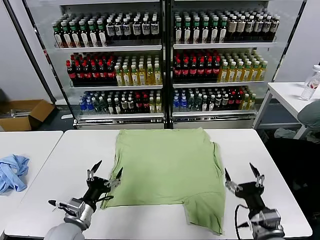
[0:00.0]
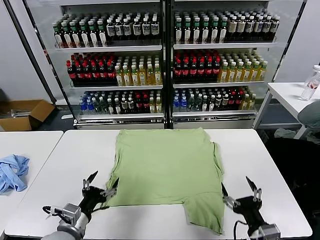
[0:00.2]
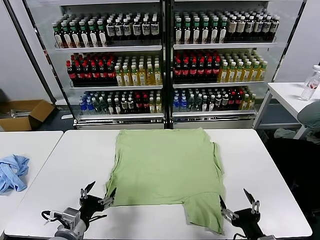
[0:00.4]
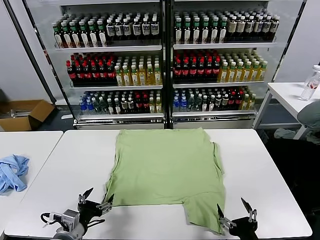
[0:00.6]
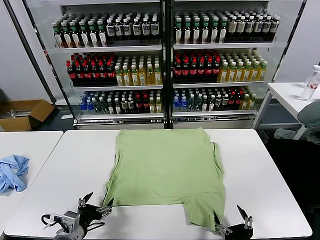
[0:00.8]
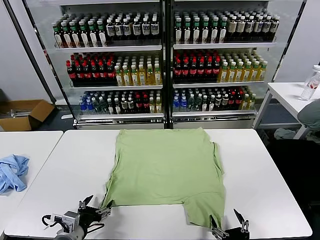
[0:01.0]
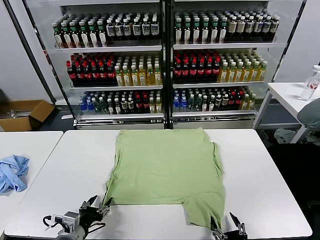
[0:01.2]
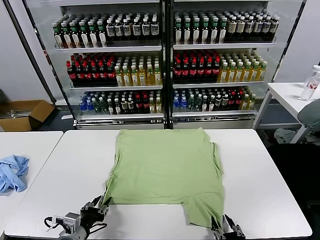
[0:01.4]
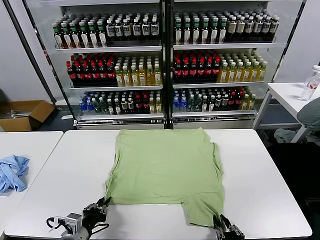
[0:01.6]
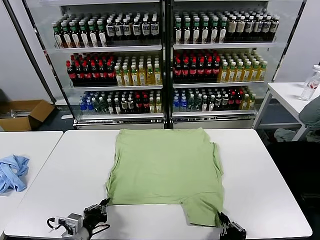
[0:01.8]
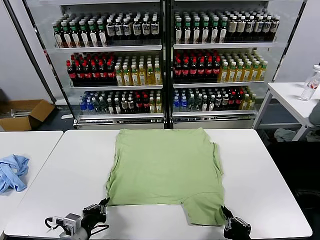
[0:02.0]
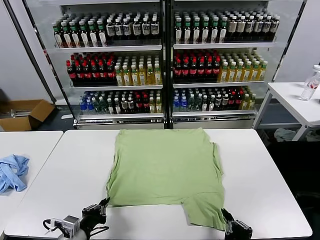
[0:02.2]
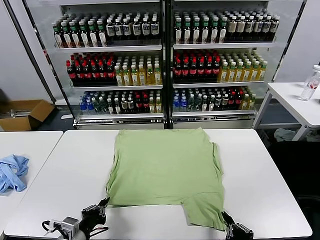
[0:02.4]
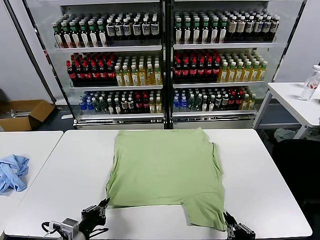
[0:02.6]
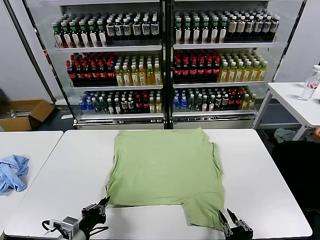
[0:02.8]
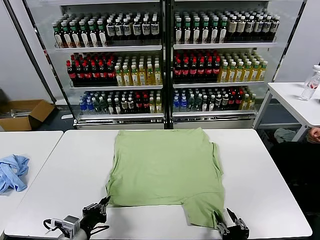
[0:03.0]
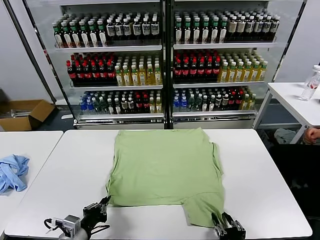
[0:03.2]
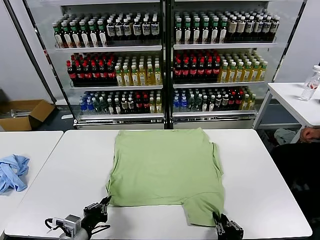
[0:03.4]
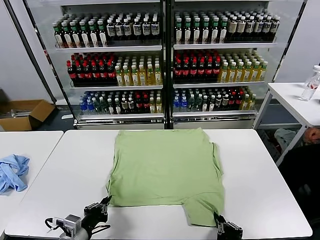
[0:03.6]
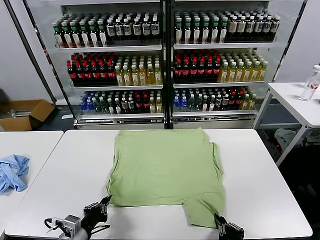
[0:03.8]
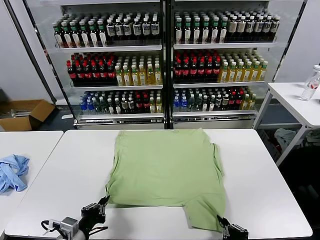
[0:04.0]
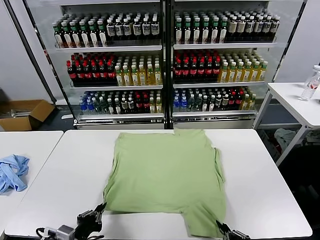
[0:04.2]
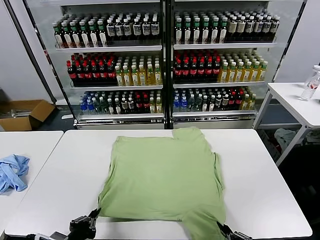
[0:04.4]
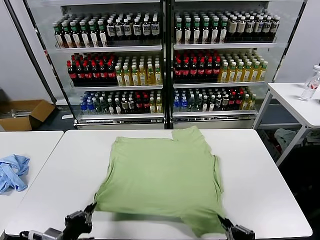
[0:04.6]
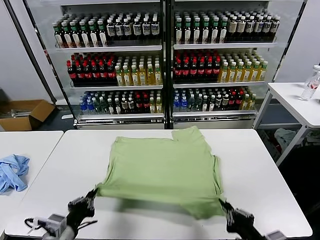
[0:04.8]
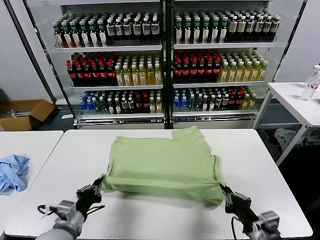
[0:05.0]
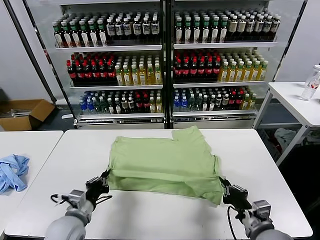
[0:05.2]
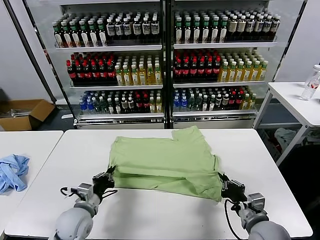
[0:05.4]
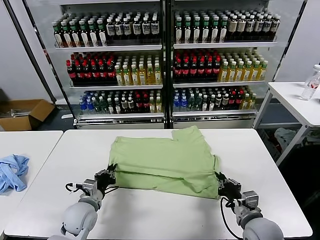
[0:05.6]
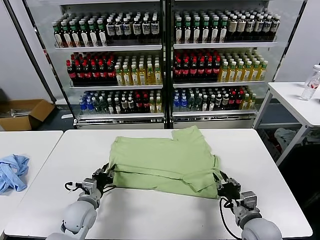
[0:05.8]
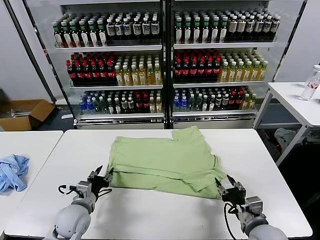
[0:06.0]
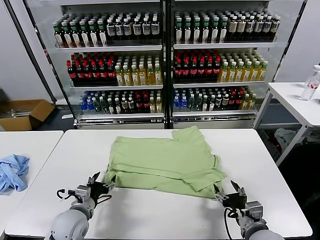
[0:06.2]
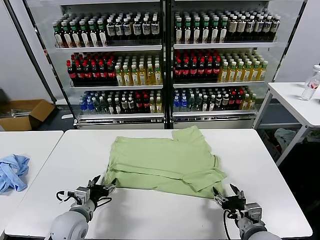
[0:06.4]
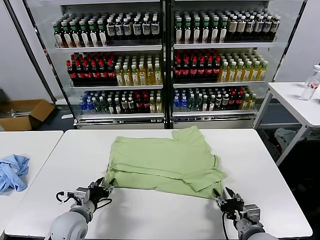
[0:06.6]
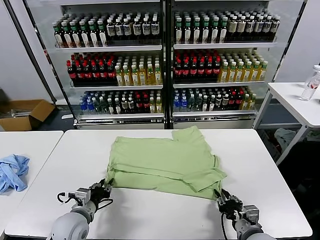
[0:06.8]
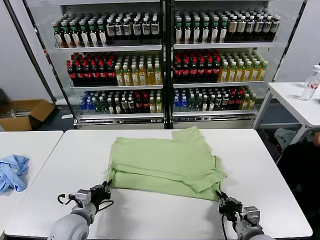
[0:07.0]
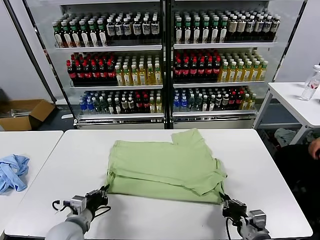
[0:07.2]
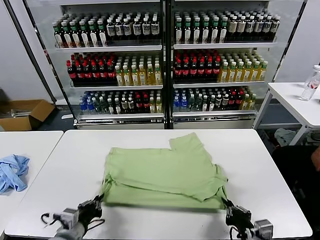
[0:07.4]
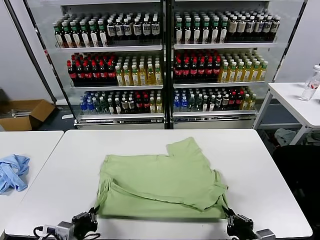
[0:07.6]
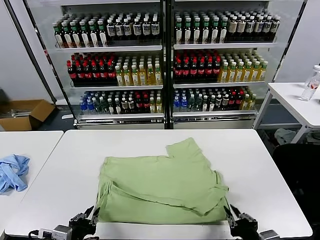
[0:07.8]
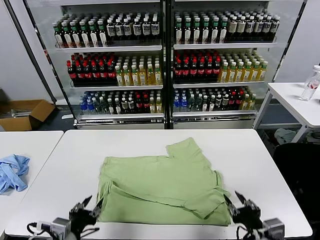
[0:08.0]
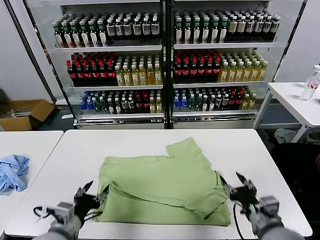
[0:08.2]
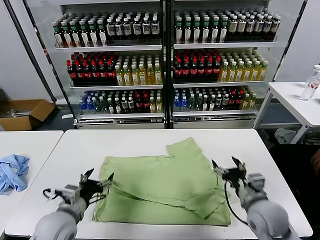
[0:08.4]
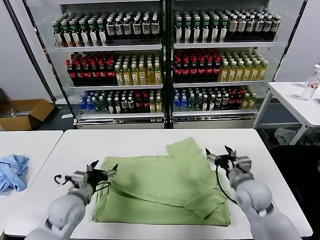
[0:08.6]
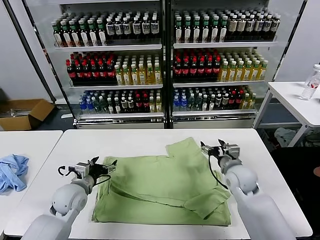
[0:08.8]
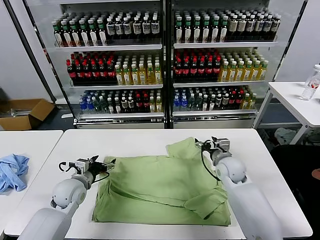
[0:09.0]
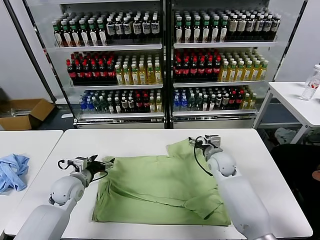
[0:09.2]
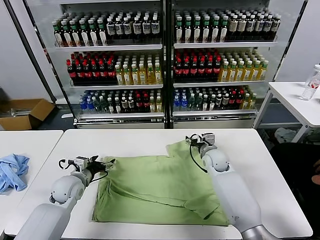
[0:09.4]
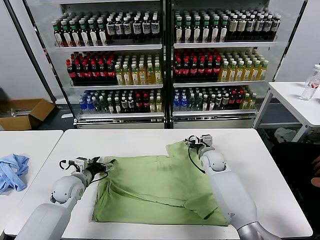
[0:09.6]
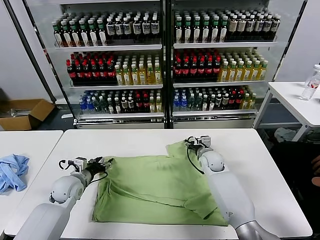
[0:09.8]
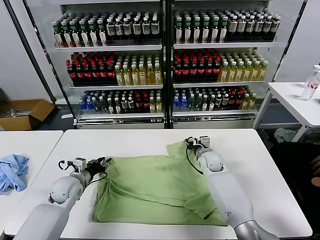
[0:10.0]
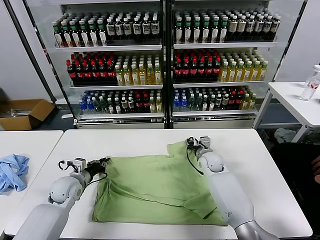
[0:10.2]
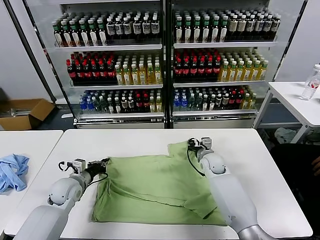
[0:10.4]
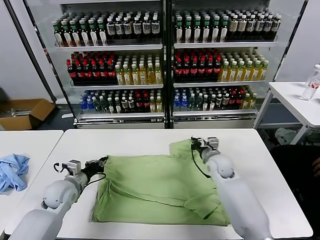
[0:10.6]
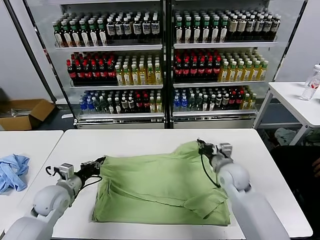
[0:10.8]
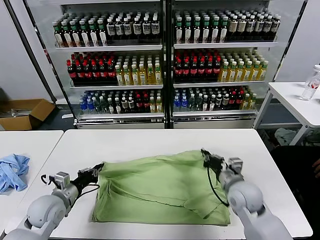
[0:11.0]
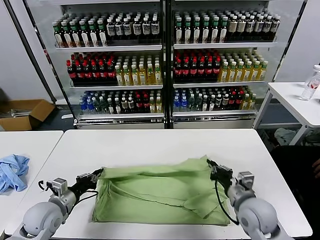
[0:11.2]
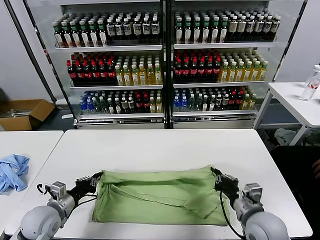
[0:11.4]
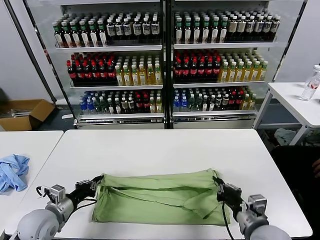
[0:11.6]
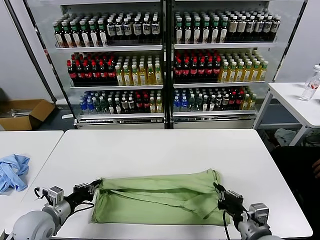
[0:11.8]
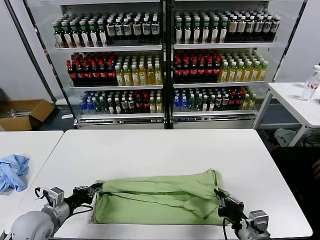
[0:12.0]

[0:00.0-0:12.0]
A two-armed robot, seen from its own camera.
Task of the whole recording: fold and organize the clothes.
Step, 0:00.0 to 0:01.8: use both grippers simultaneously to clamp the lower edge of the clothing fabric.
Step, 0:02.0 to 0:05.8: use both grippers to drag the lower edge of the fabric forward and fold it over the upper edge.
Step, 0:06.0 to 0:07.8: Drag the clothes downward with both gripper.
Step, 0:08.0 to 0:10.4: use both grippers simultaneously to clamp the upper edge of the clothing fabric.
0:01.6 to 0:03.0: The right gripper opens its fingers.
0:03.0 to 0:04.4: The left gripper changes place by some 5 cm. Meanwhile the right gripper is displaced upward by approximately 10 cm, and closes up.
0:04.4 to 0:06.0: The left gripper is displaced forward by approximately 15 cm, and opens; the right gripper heads forward and downward, covering approximately 15 cm, and opens its fingers.
0:06.0 to 0:07.6: The right gripper goes approximately 10 cm backward, and closes its fingers. Meanwhile the left gripper travels backward by some 15 cm, and closes up.
0:07.6 to 0:09.0: The left gripper travels forward by some 20 cm, and opens. The right gripper heads forward, covering about 35 cm, and opens its fingers.
0:09.0 to 0:10.4: The left gripper closes its fingers. The right gripper closes its fingers.
0:10.4 to 0:12.0: The left gripper heads backward, covering some 15 cm. The right gripper heads backward, covering approximately 35 cm.

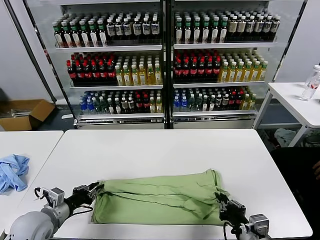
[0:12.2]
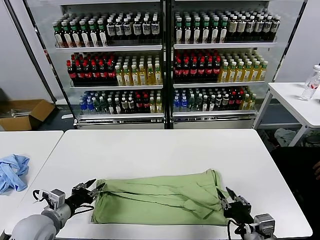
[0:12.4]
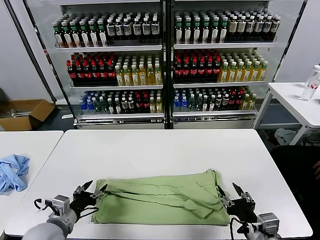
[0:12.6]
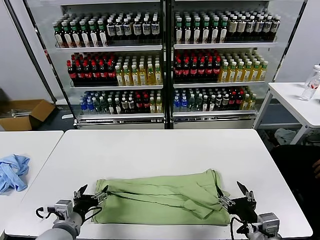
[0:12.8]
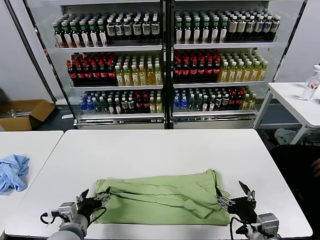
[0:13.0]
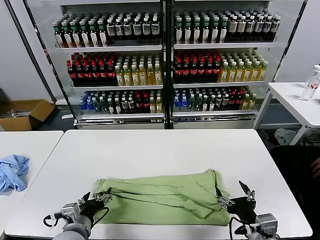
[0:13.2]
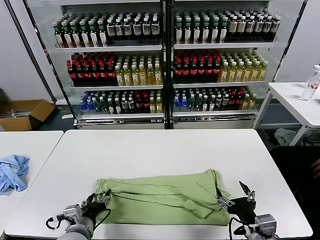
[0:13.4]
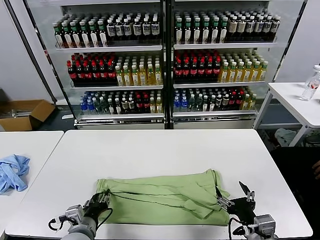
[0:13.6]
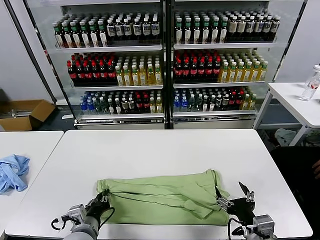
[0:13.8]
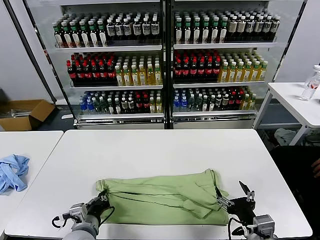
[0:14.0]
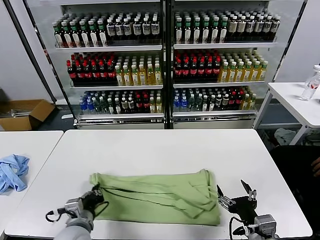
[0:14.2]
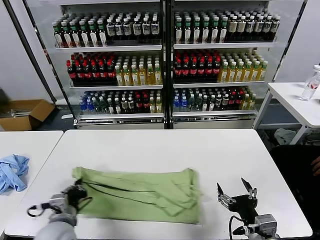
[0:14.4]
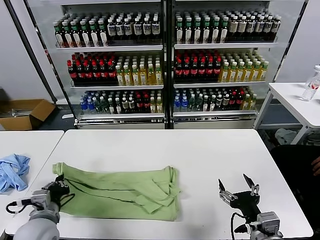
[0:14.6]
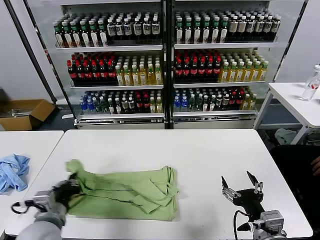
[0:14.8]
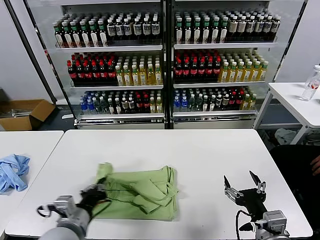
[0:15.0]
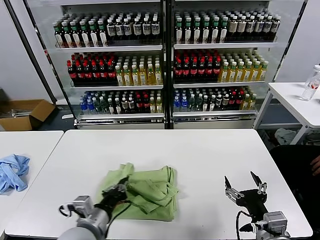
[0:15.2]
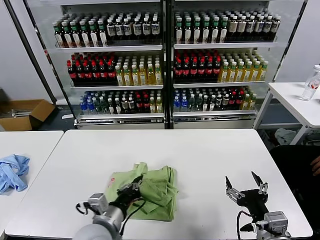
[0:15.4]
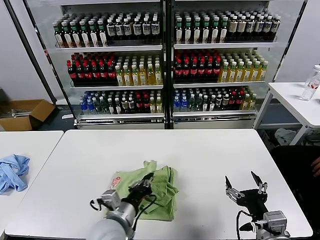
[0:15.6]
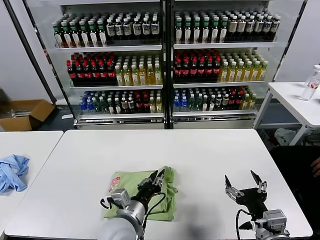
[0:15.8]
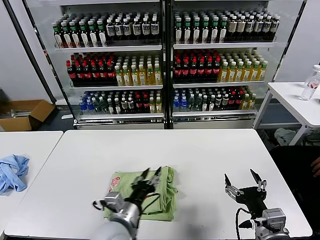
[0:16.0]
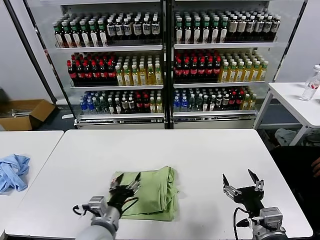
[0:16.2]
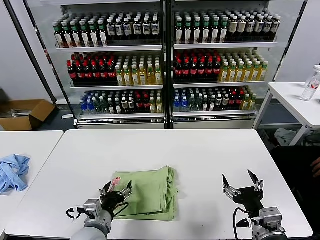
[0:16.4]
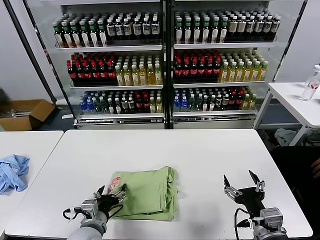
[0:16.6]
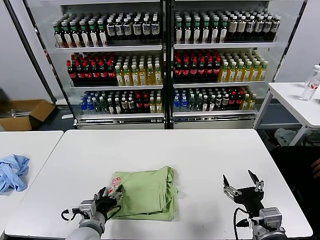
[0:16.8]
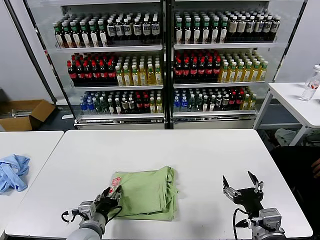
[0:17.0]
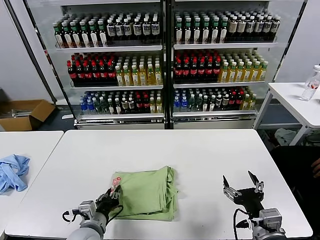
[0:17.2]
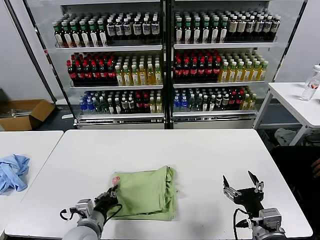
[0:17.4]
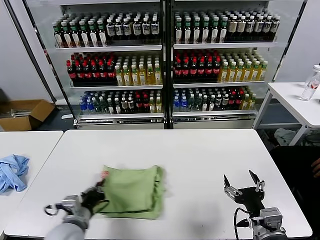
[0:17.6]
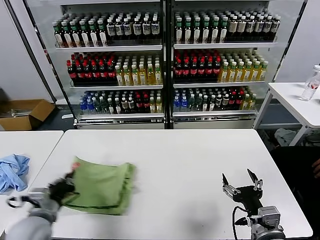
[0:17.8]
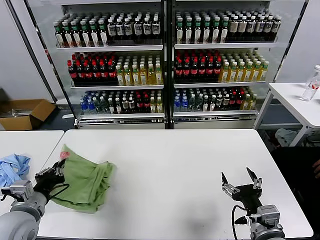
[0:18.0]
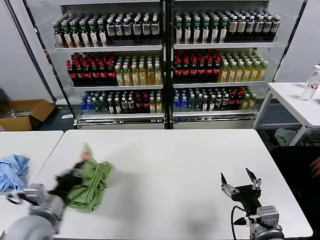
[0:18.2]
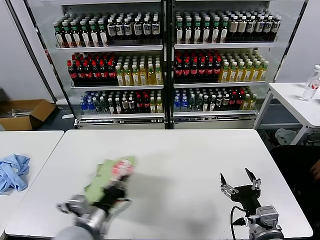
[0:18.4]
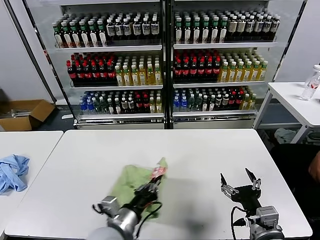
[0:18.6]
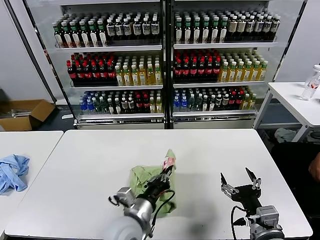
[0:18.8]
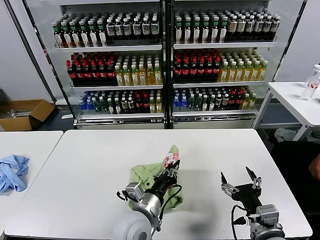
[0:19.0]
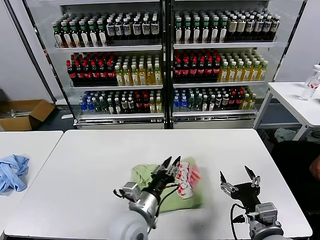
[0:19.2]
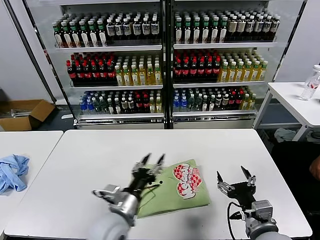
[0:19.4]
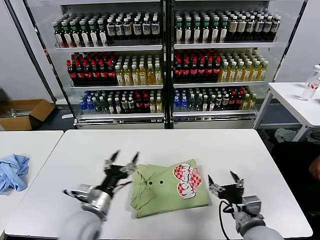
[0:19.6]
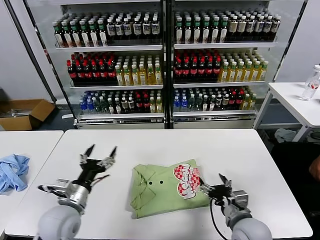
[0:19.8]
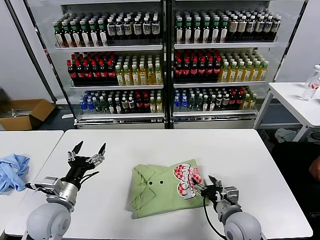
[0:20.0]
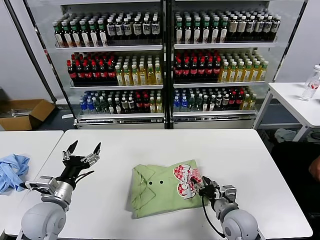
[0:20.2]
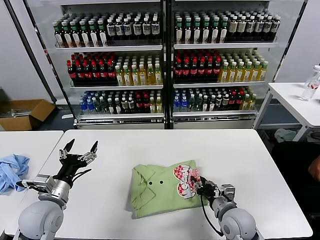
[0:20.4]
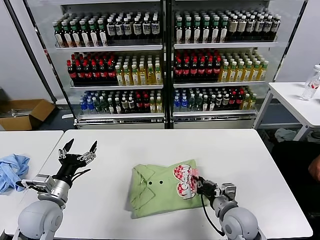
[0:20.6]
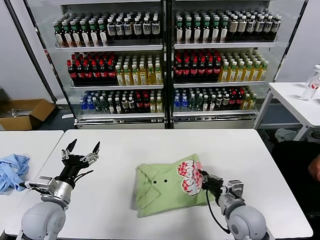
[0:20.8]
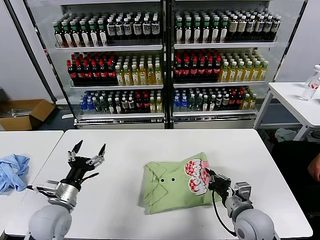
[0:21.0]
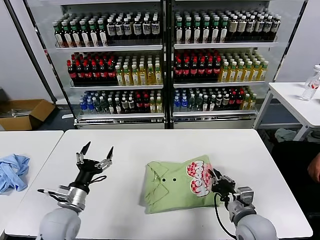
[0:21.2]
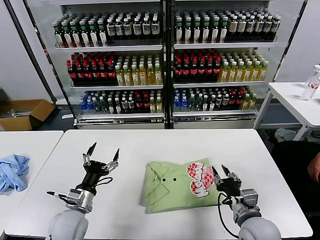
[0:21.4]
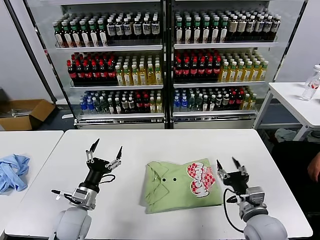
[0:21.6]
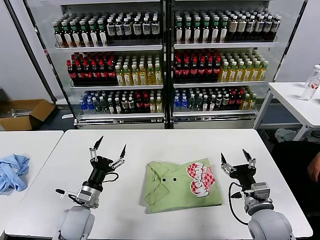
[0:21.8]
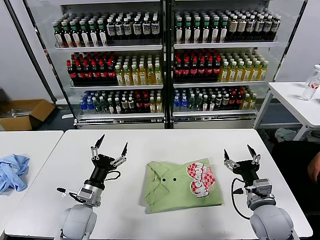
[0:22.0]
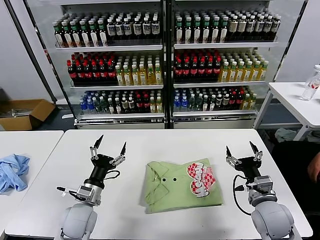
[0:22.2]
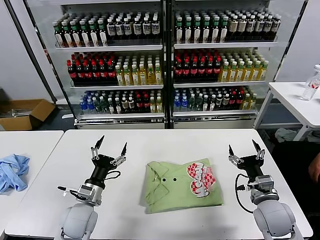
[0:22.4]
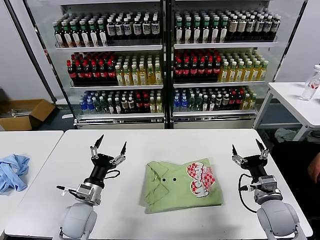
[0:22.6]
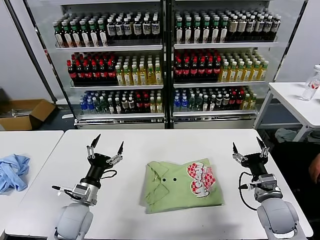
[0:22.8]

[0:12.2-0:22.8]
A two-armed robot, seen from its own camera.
Task of the whole recording: fold and organize the clothes.
Step, 0:12.4 to 0:13.8: use the left gripper to clamp the left edge of the fabric.
Step, 0:14.0 to 0:15.8: use the left gripper to drag the left edge of the fabric to the left and folds it over the right edge.
Step, 0:16.0 to 0:19.2: Flip the folded clothes over with left gripper.
Step, 0:19.4 to 0:21.2: Drag the clothes to the center of the table.
0:12.2 to 0:13.8: The left gripper goes roughly 15 cm to the right, and opens, then closes once more. The right gripper opens its fingers.
0:13.8 to 0:15.2: The left gripper shifts some 10 cm upward, and reaches some 10 cm to the left, then returns.
0:15.2 to 0:16.8: The left gripper moves downward, about 10 cm, goes to the right and returns, some 10 cm each way, and opens its fingers.
0:16.8 to 0:18.2: The left gripper travels upward and to the left by some 15 cm, and closes its fingers.
0:18.2 to 0:19.8: The left gripper shifts about 5 cm downward, goes to the right and returns, about 25 cm each way, and opens; the right gripper travels forward by some 5 cm.
0:19.8 to 0:21.2: The right gripper closes.
0:21.2 to 0:22.8: The right gripper moves to the right, some 10 cm, and opens.
